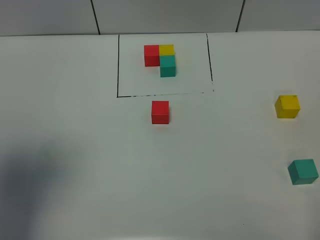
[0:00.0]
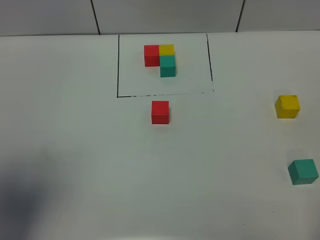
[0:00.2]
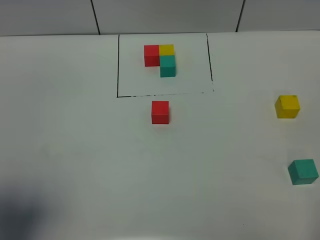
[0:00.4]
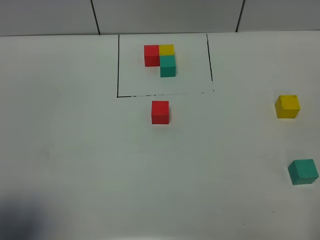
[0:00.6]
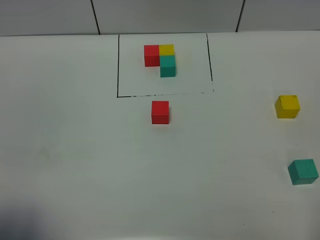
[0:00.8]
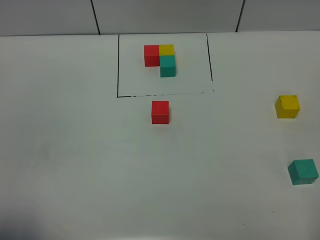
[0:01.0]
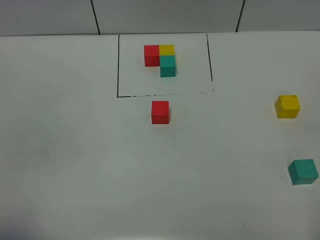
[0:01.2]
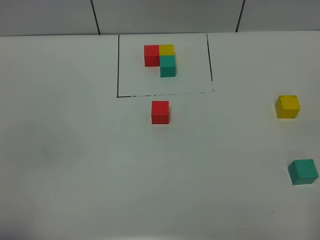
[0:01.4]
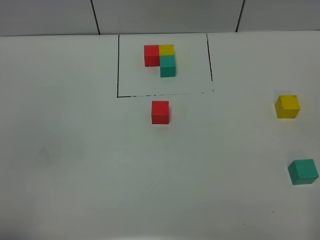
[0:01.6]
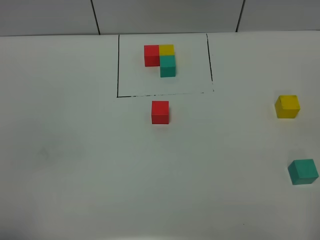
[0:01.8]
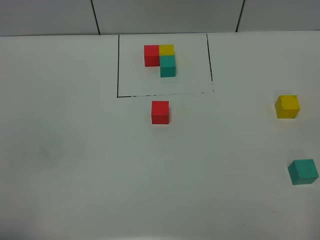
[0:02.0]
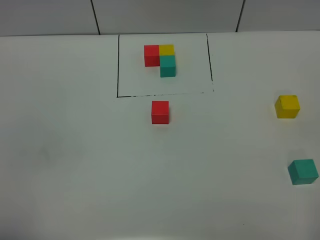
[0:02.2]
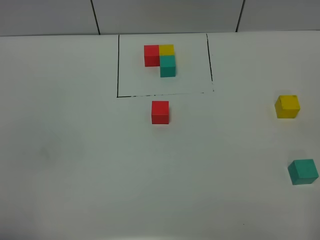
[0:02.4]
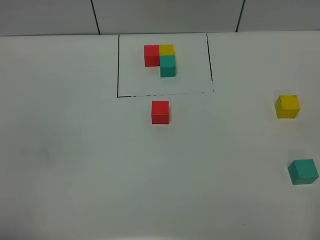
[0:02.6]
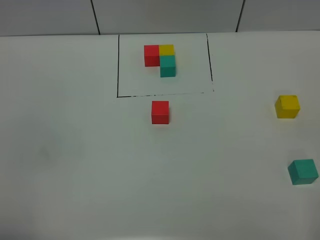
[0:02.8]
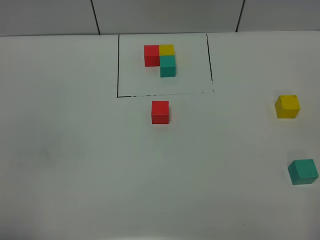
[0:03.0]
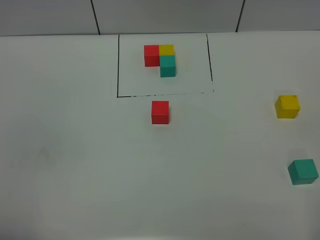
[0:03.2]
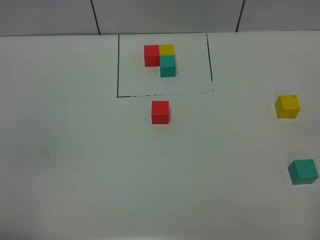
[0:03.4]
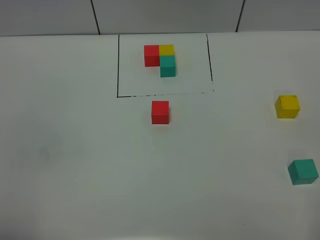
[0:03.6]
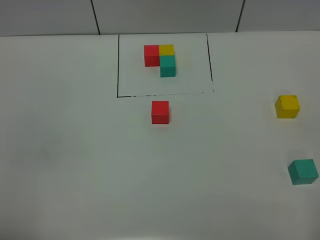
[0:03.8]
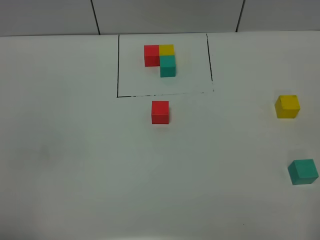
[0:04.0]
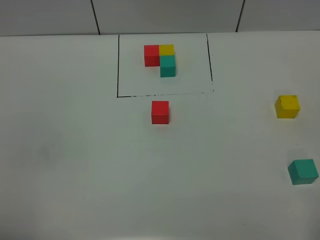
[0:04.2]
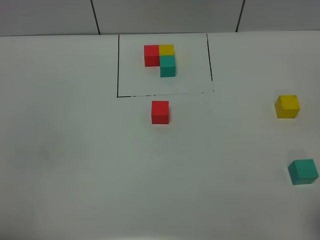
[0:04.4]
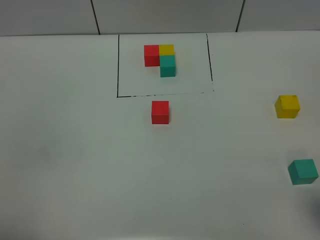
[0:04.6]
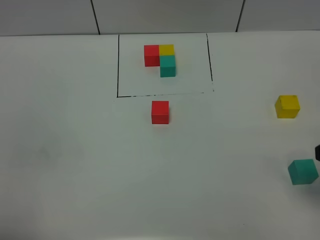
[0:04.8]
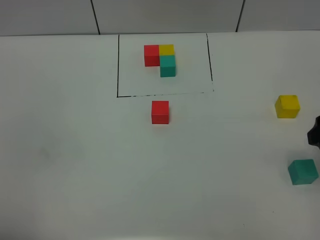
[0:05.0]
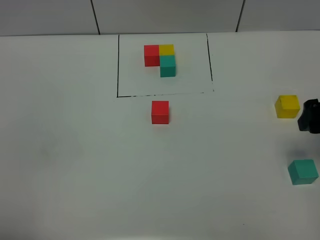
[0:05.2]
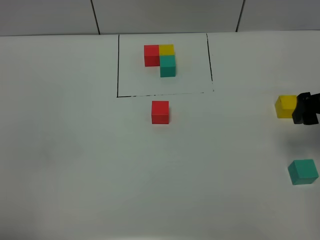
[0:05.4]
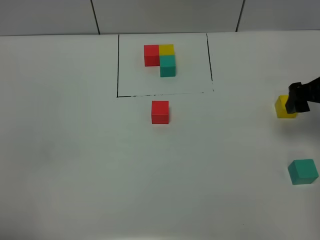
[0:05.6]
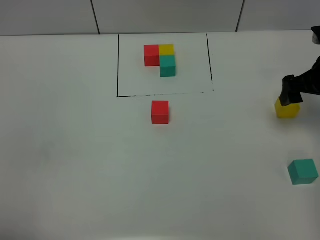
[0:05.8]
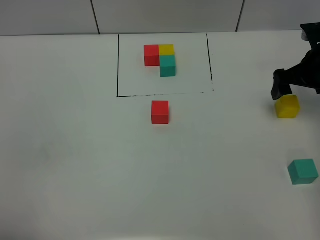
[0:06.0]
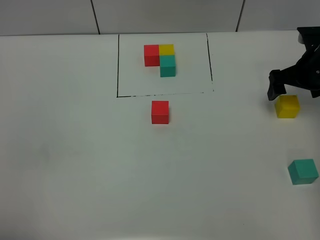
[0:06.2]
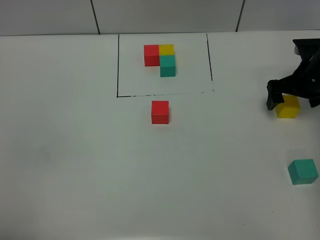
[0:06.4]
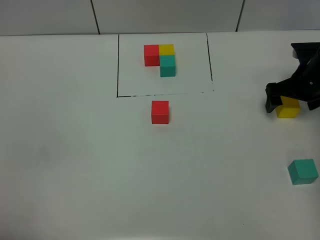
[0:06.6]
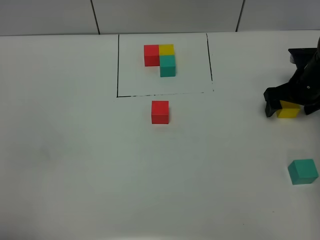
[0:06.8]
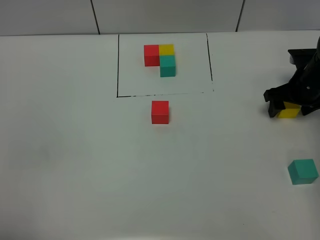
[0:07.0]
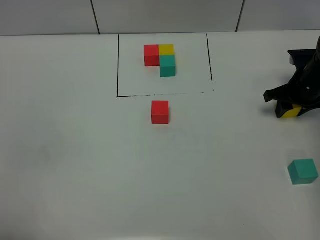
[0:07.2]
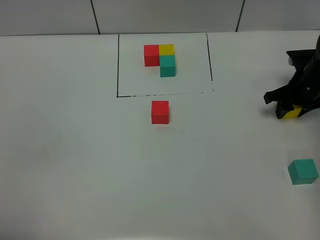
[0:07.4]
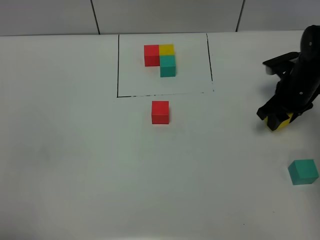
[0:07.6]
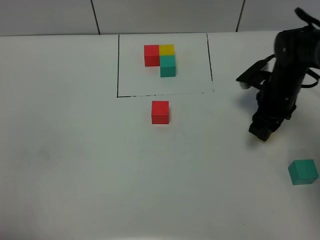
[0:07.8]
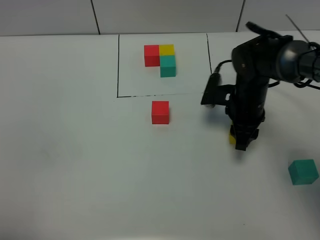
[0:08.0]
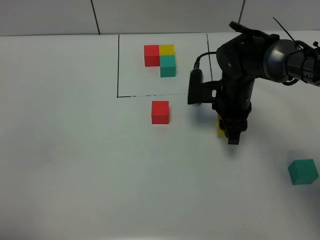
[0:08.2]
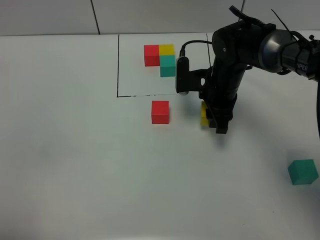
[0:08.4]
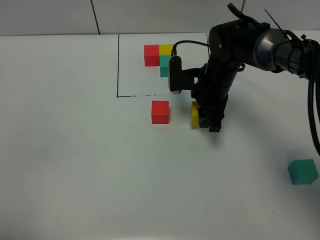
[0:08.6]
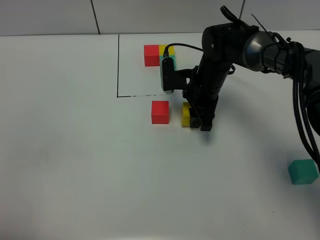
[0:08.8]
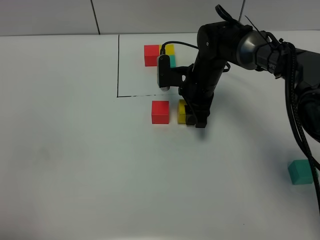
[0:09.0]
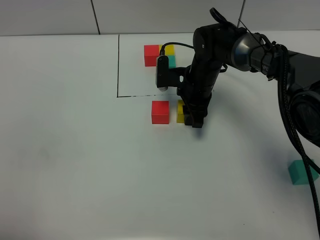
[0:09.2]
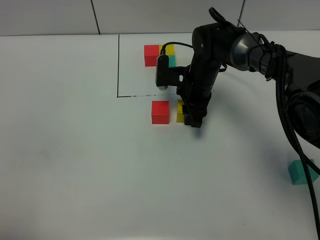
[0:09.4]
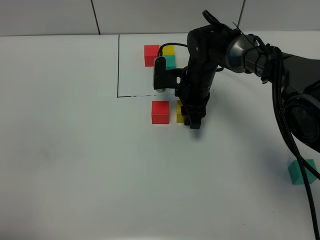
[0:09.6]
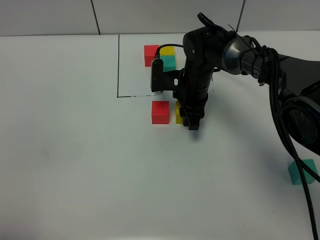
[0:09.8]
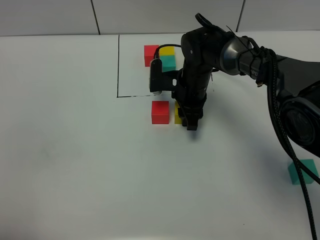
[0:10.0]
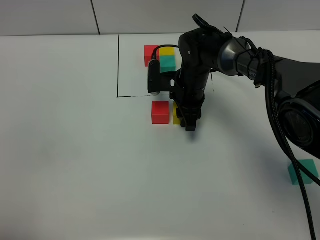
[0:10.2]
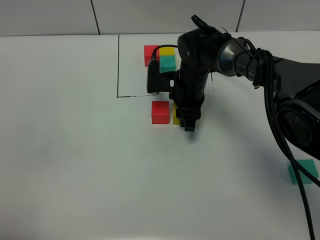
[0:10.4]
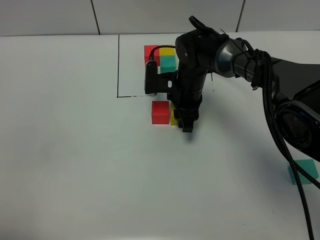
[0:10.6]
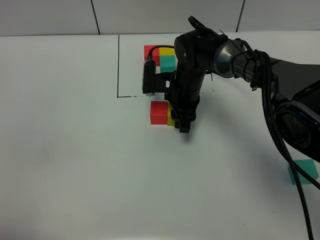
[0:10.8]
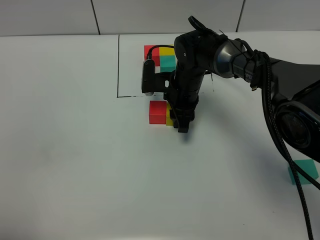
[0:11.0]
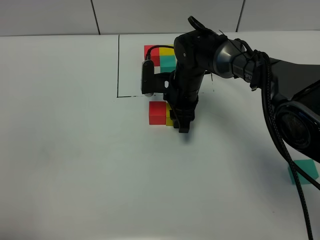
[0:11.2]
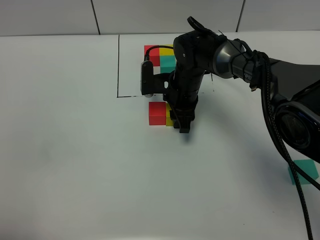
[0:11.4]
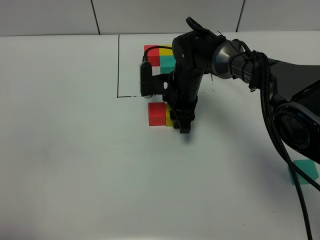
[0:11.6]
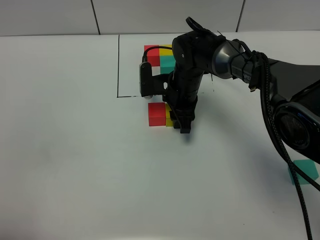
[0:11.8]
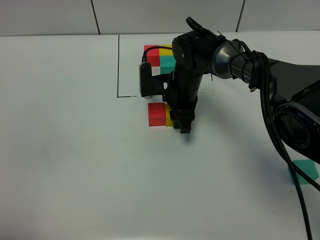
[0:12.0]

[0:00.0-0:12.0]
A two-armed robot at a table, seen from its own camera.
Task of the whole recording: According to the building block template in front, assemble the scattered blocks together.
0:00.0 to 0:01.6: The left gripper heads backward and downward, covering about 20 cm.
0:01.6 to 0:03.0: The two grippers keep their place.
0:04.4 to 0:06.0: The right gripper is displaced forward by some 35 cm.
0:06.0 to 0:07.6: The right gripper shifts about 5 cm downward, and closes.
0:07.6 to 0:09.0: The right gripper travels to the left by about 20 cm.
0:09.0 to 0:10.4: The grippers stay close to where they were, moving slightly.
0:10.4 to 0:12.0: Both grippers stay put.

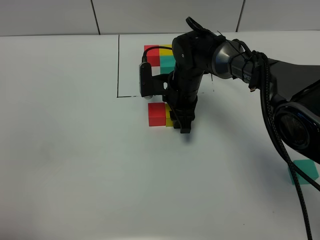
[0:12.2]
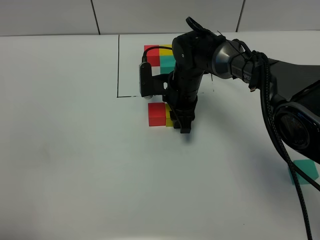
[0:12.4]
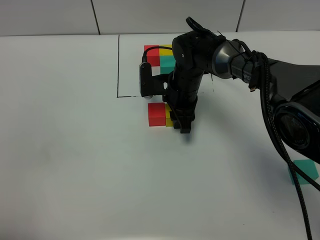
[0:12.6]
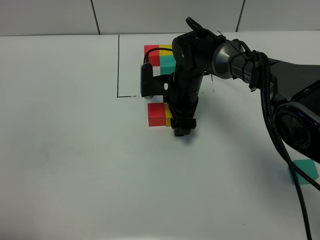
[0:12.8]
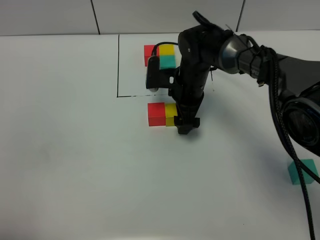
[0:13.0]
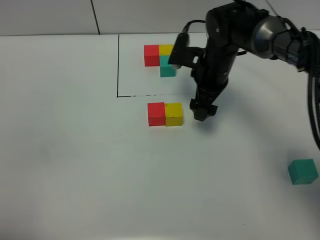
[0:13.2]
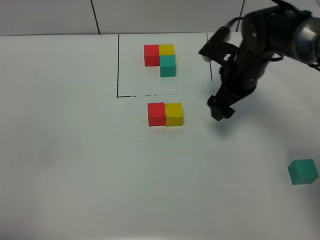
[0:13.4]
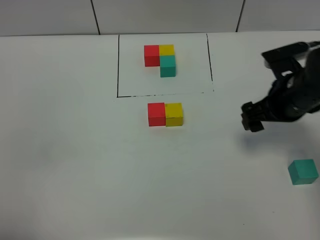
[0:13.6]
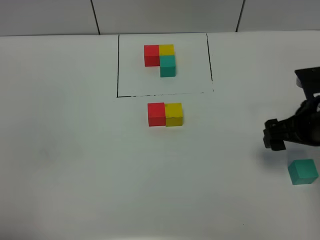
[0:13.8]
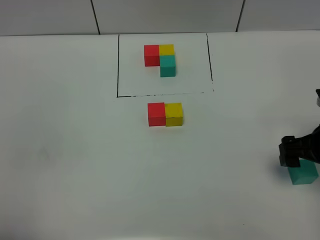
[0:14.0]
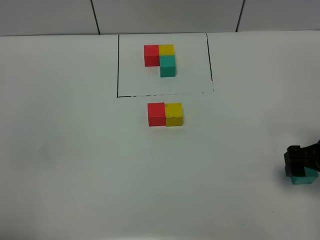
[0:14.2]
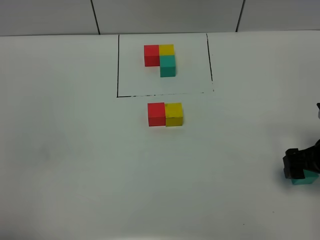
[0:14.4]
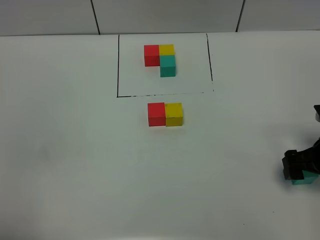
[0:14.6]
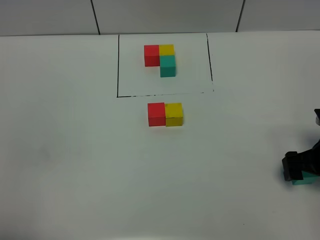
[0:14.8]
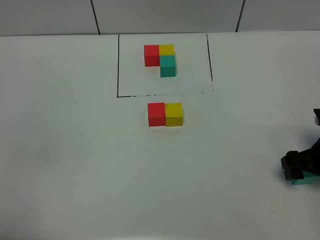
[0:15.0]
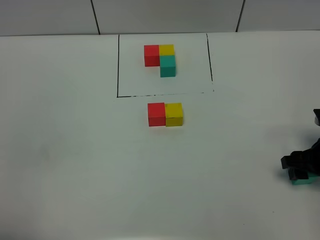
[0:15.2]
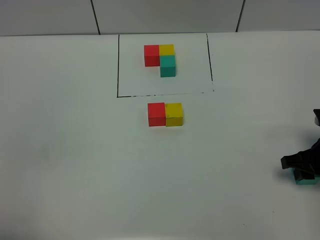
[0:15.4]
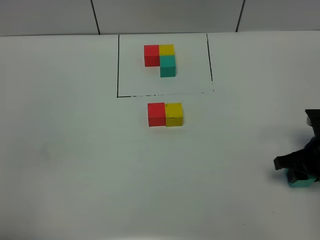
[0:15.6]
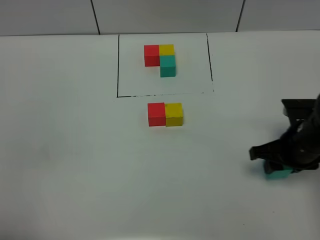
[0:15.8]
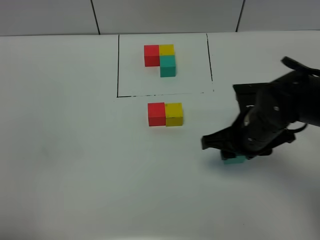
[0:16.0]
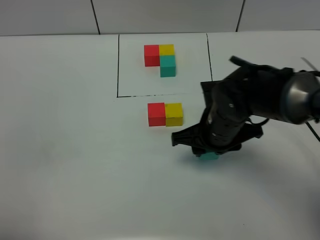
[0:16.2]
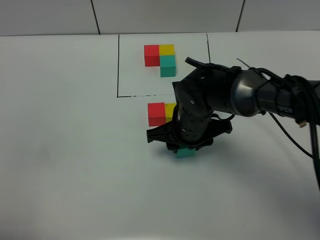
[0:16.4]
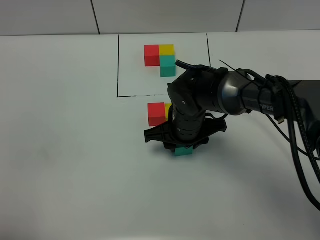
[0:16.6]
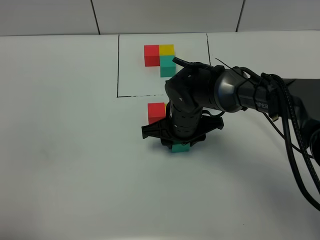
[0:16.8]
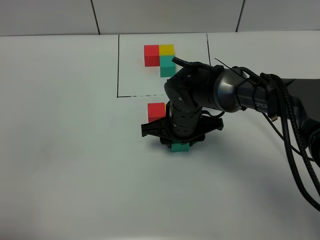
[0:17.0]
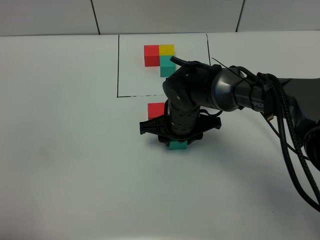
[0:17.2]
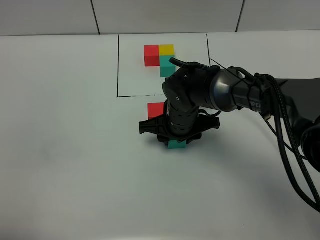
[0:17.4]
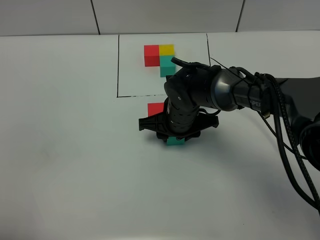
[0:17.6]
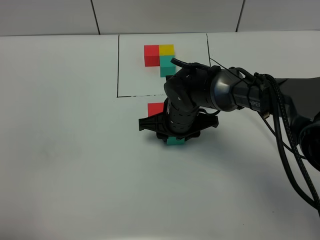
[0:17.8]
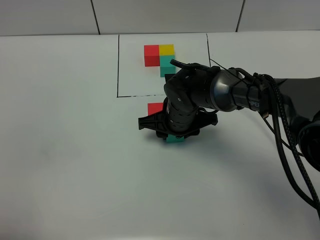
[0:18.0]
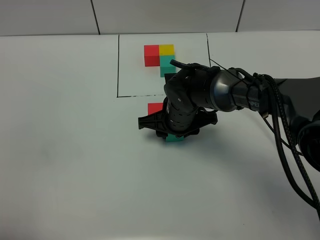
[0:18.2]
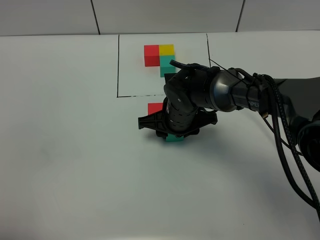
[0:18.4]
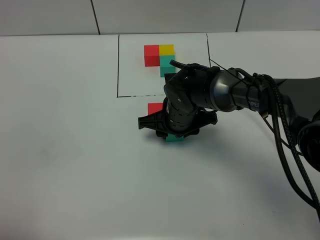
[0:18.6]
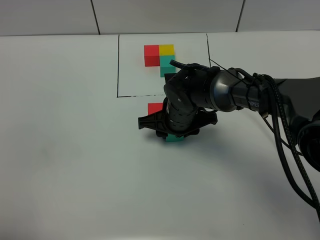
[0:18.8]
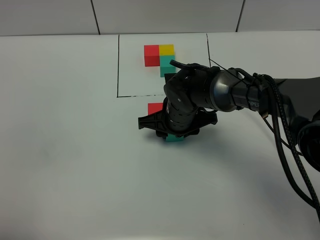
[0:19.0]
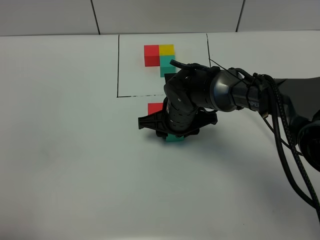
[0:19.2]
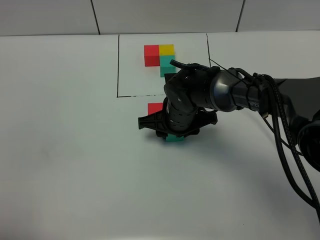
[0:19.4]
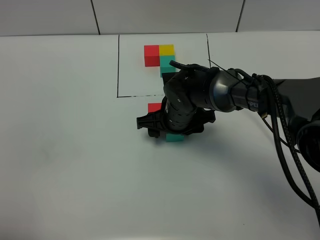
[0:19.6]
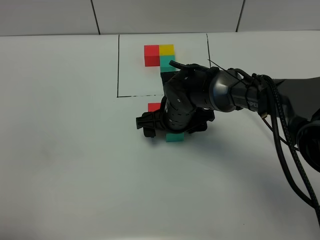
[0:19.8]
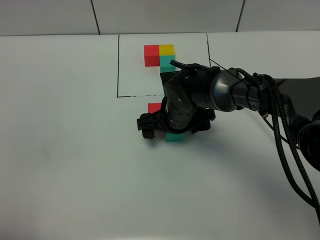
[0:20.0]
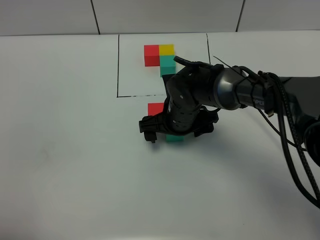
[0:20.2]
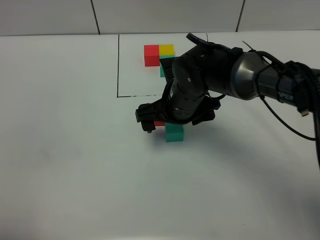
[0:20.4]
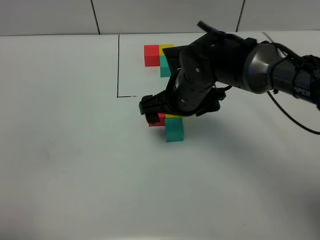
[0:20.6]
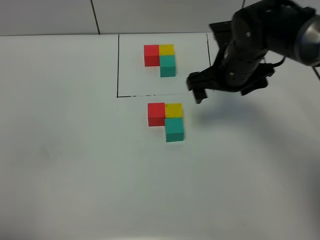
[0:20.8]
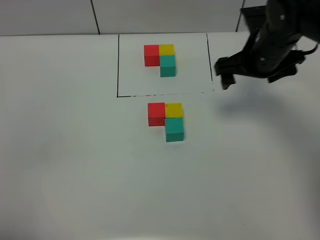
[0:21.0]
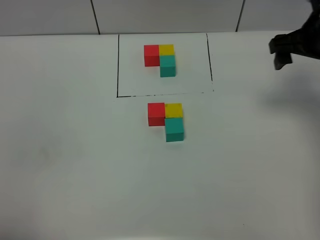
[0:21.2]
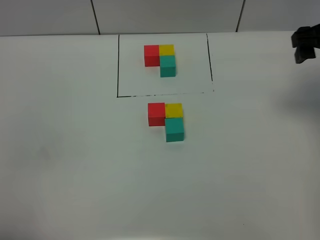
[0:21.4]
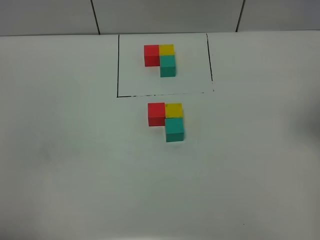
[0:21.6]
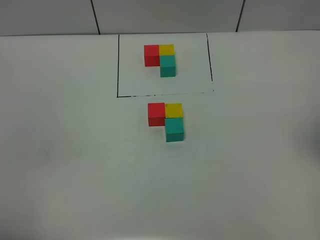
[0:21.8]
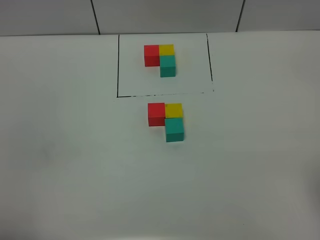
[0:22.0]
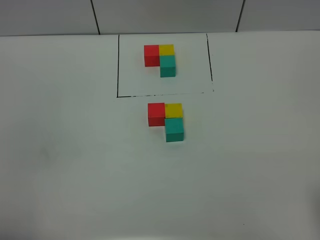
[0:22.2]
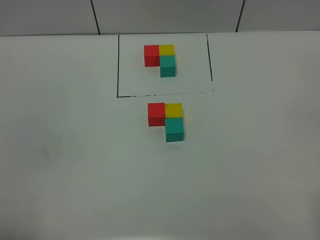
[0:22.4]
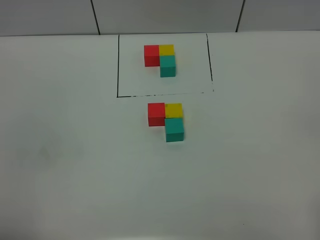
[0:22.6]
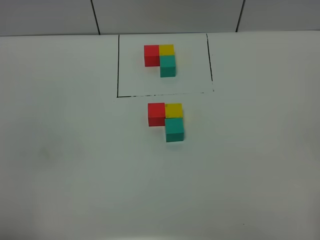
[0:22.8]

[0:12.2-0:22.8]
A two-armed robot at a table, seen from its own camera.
Task of the whole recording: According to the building block template in front, assemble the scattered blocks together.
Step, 0:12.8 to 0:19.8: Put the green build block on the behind of the yellow build block.
0:12.2 to 0:13.8: The right gripper travels to the right and backward by some 25 cm, and opens its fingers.
0:13.8 to 0:15.2: The right gripper moves downward, about 5 cm, and closes up.
0:15.2 to 0:16.8: The right gripper is displaced to the left by some 25 cm.
0:16.8 to 0:18.2: The grippers stay close to where they were, moving slightly.
0:18.2 to 0:19.8: The right gripper opens.
0:19.8 to 0:21.2: The right gripper shifts some 30 cm to the right and upward.
0:21.2 to 0:22.8: The right gripper heads backward, covering roughly 40 cm.
